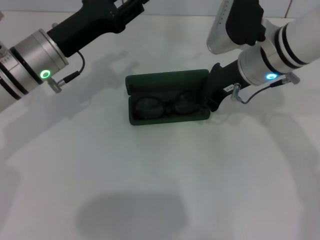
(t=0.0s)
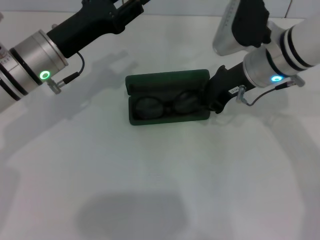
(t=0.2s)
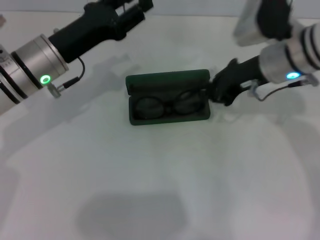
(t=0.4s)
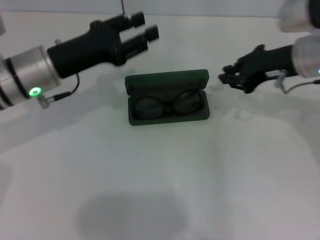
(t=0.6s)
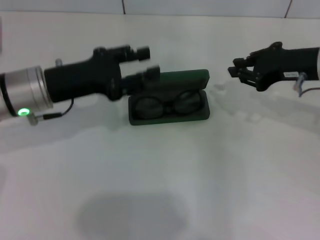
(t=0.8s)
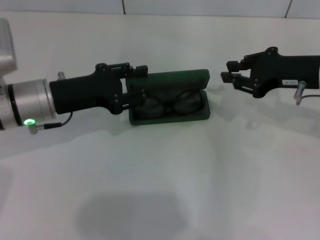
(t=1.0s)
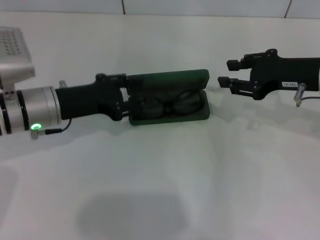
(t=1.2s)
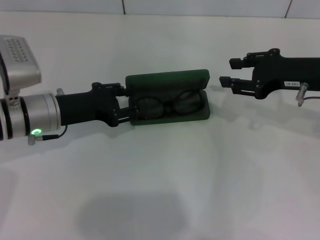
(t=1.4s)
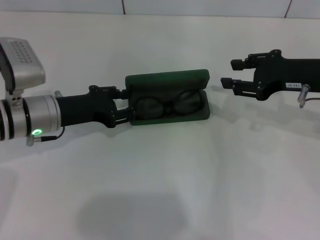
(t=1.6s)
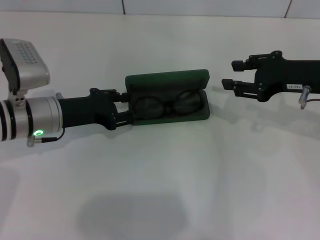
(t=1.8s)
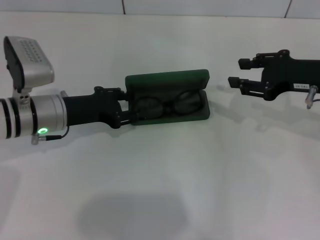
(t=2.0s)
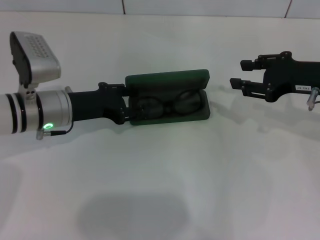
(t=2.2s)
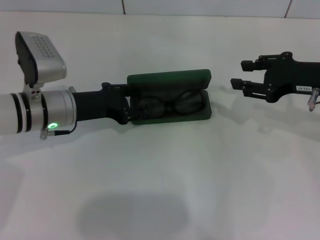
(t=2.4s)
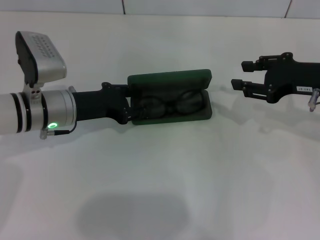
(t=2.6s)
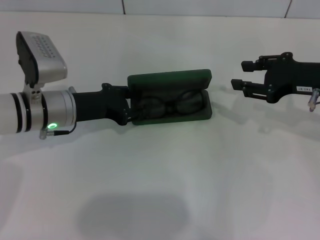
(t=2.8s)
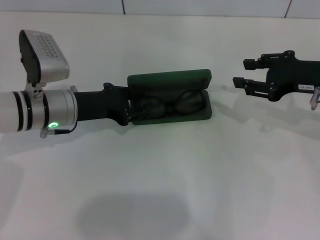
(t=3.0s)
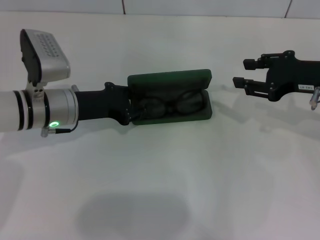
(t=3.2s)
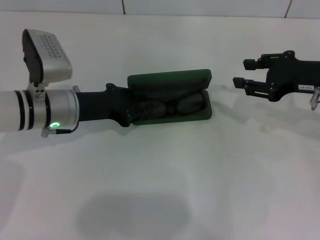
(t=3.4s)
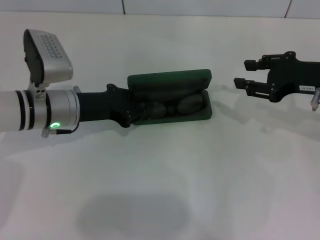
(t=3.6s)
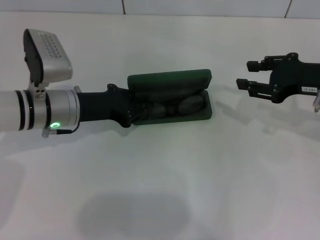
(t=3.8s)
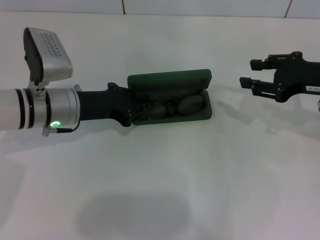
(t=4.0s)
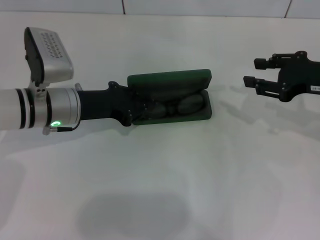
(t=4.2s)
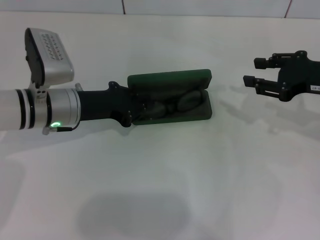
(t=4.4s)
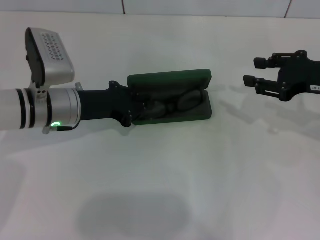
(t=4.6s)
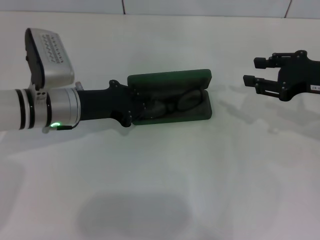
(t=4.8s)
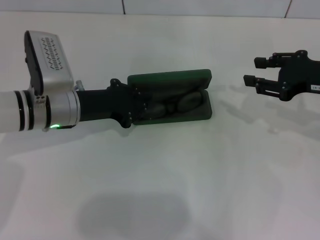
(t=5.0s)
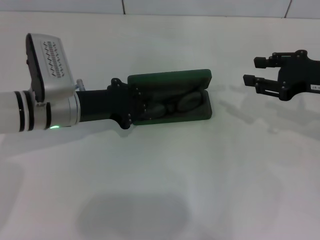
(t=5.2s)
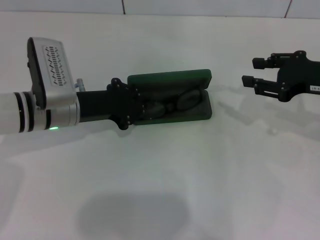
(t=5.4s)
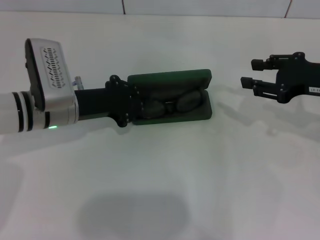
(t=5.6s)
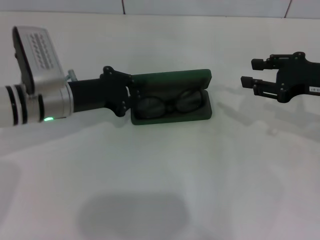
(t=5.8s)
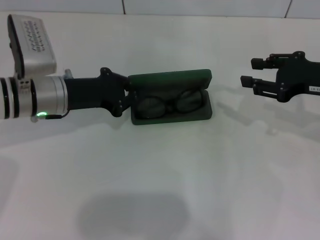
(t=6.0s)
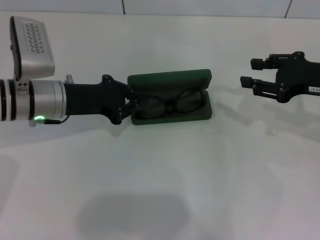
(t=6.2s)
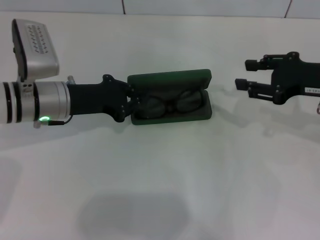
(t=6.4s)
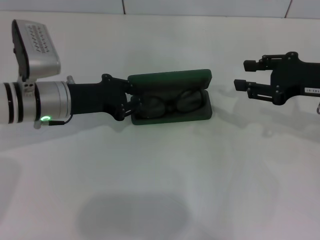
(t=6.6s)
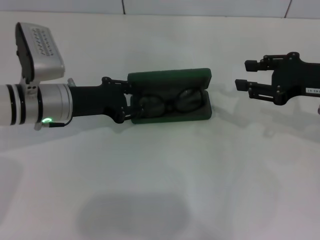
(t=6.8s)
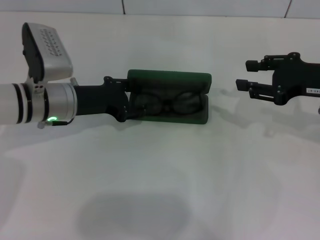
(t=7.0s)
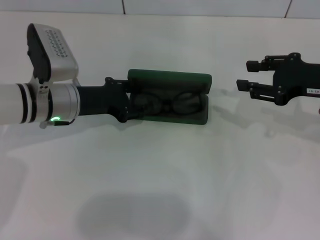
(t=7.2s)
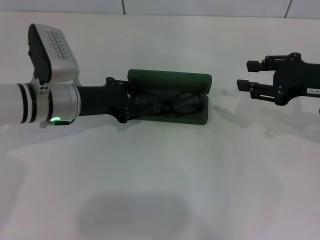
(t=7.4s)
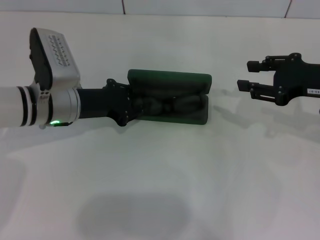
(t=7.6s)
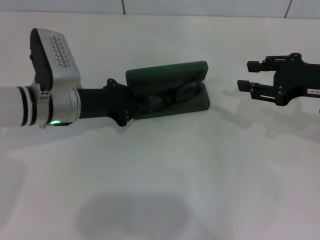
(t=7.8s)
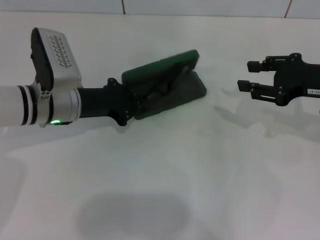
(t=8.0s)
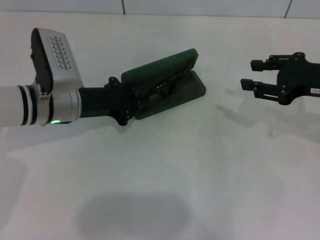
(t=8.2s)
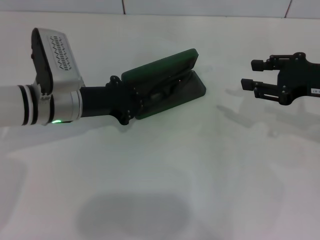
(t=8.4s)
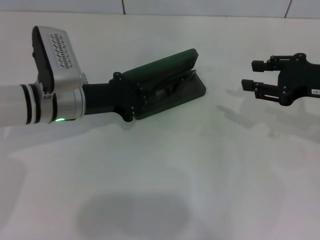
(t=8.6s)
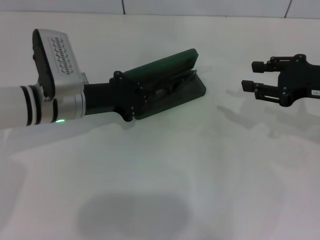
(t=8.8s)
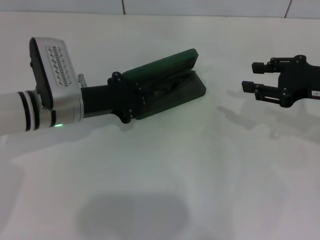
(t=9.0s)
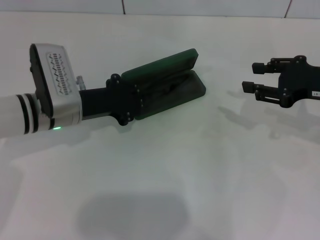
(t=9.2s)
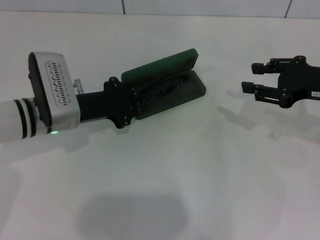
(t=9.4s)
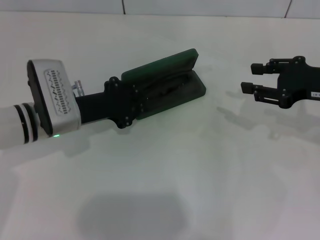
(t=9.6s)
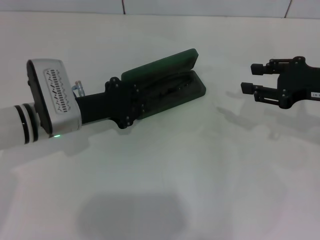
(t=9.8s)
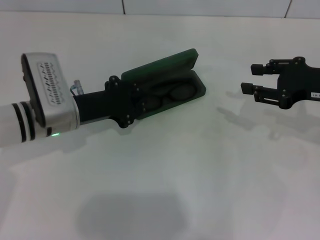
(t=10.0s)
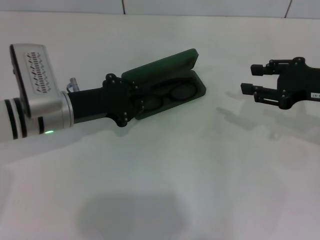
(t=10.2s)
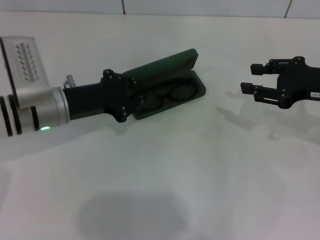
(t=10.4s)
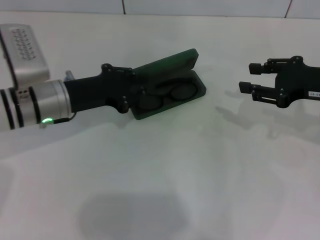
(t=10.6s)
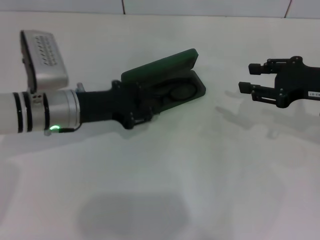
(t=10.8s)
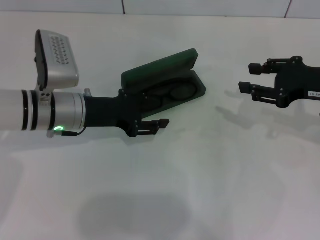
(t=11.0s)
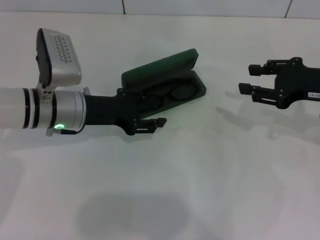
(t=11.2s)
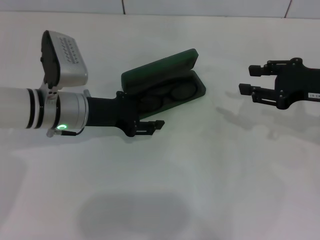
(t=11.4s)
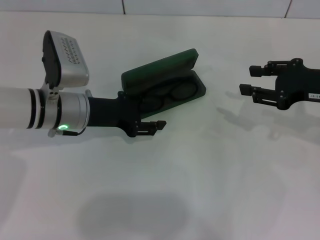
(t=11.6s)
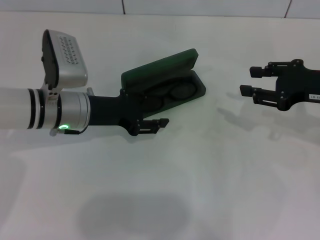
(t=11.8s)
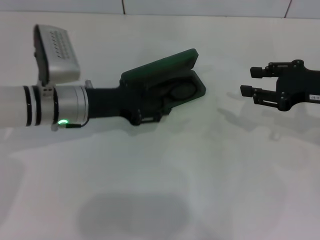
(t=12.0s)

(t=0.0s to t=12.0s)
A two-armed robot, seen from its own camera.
t=0.0s - t=1.6s: The right gripper is displaced to the right by about 10 cm, and opens its fingers. Meanwhile the left gripper shifts approximately 5 cm downward.
t=1.6s - t=4.4s: The grippers make only small movements.
t=6.0s - t=7.6s: The left gripper opens its fingers.
t=7.6s - t=9.0s: The left gripper closes up.
t=9.0s - t=10.4s: The grippers make only small movements.
t=10.4s - t=12.0s: The left gripper opens up.

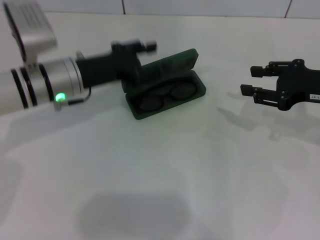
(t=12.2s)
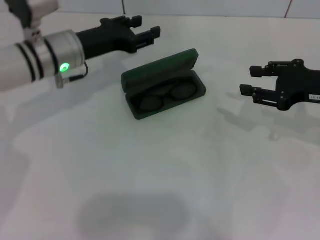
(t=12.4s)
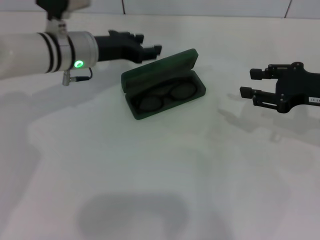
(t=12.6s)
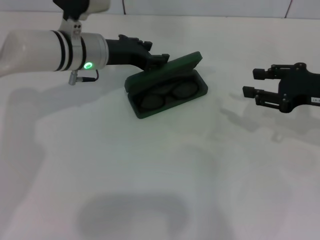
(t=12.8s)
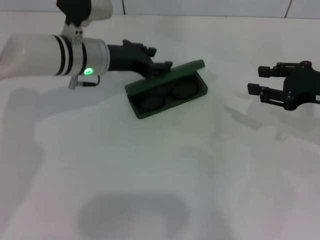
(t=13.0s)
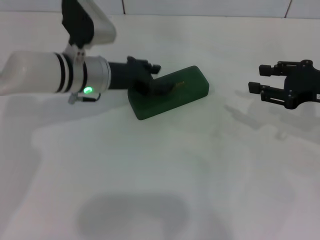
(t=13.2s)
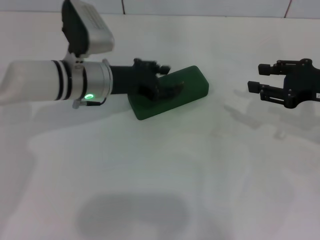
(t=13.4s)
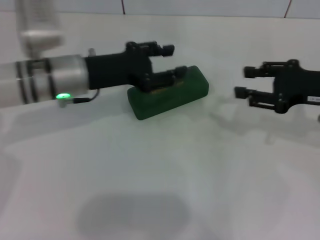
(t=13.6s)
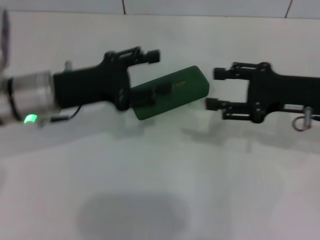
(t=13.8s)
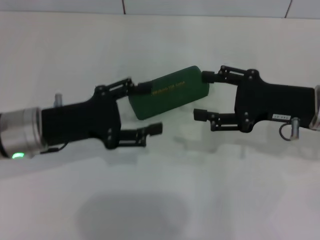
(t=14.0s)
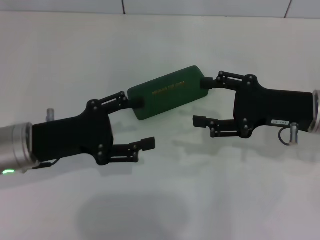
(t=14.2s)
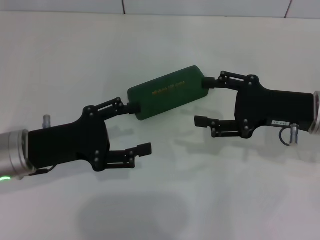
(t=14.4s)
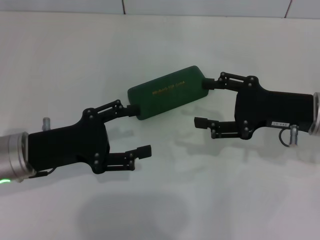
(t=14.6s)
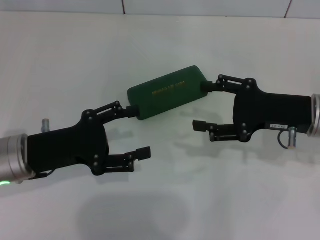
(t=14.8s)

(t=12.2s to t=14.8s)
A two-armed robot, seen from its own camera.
t=13.4s - t=14.8s: The right gripper is displaced to the left by roughly 5 cm. The left gripper heads backward and to the left, covering some 15 cm.

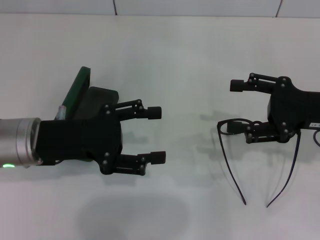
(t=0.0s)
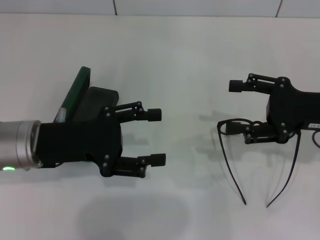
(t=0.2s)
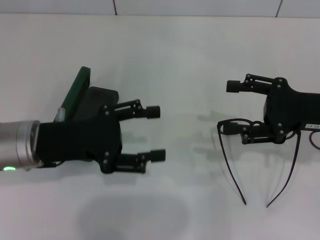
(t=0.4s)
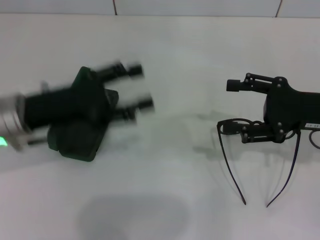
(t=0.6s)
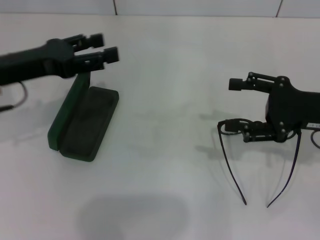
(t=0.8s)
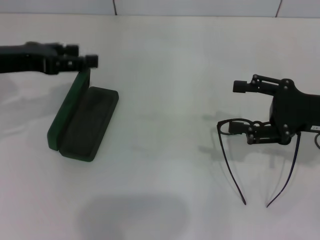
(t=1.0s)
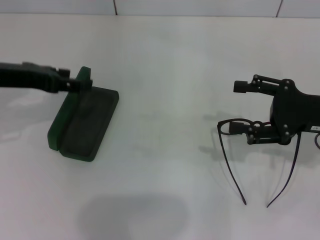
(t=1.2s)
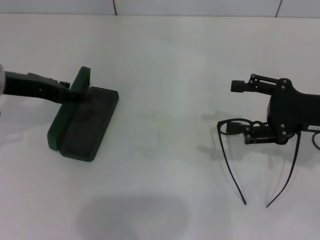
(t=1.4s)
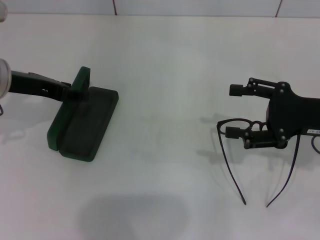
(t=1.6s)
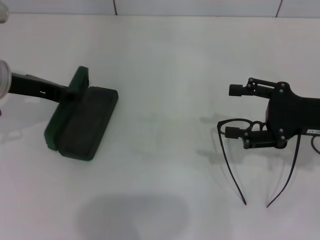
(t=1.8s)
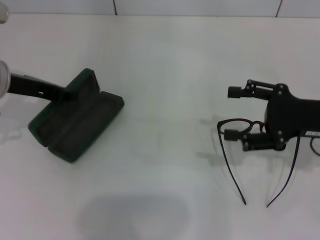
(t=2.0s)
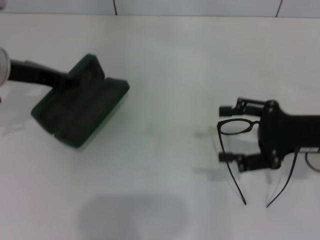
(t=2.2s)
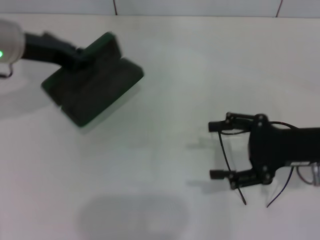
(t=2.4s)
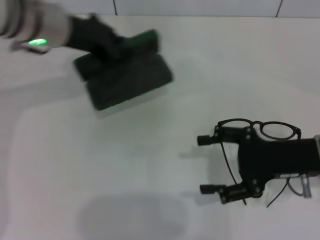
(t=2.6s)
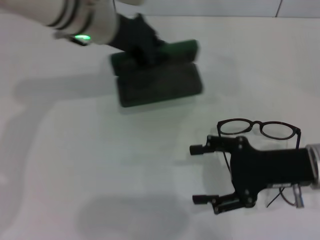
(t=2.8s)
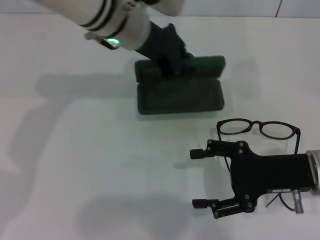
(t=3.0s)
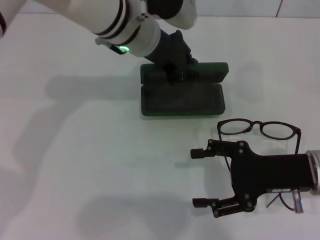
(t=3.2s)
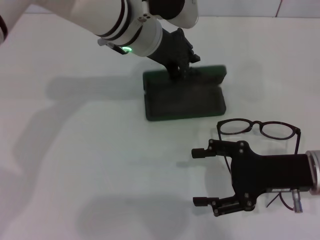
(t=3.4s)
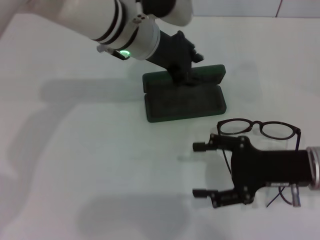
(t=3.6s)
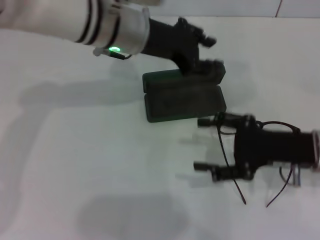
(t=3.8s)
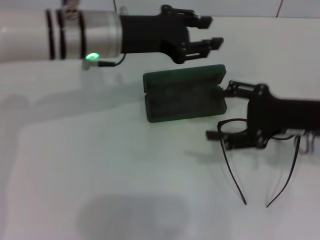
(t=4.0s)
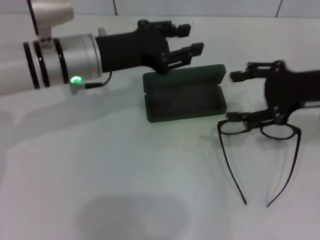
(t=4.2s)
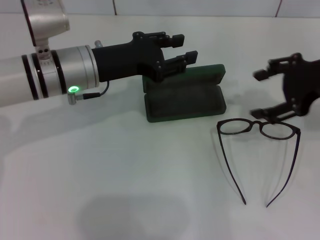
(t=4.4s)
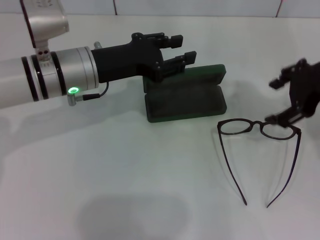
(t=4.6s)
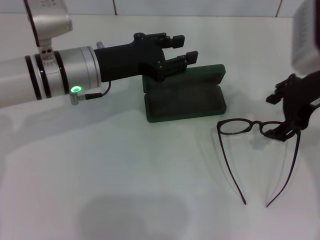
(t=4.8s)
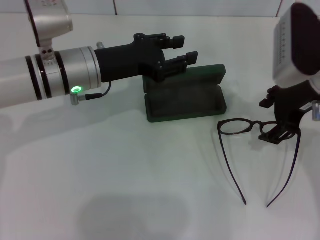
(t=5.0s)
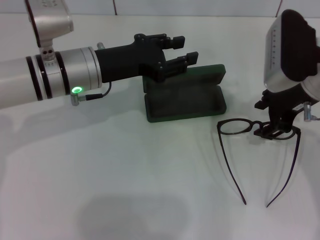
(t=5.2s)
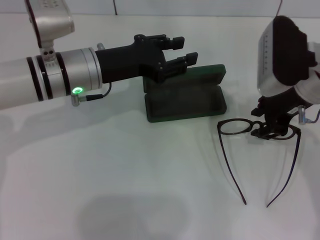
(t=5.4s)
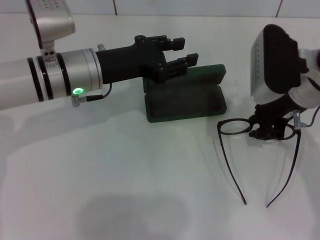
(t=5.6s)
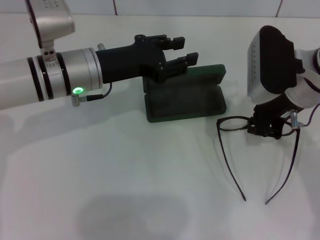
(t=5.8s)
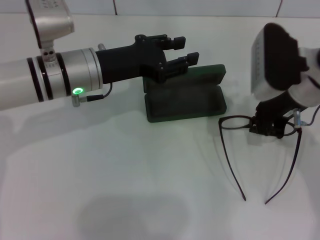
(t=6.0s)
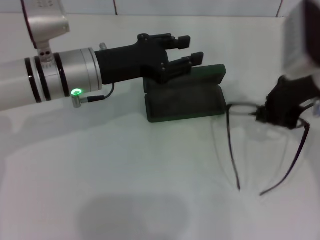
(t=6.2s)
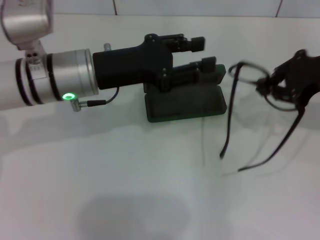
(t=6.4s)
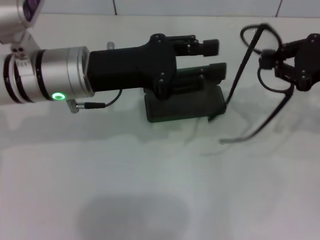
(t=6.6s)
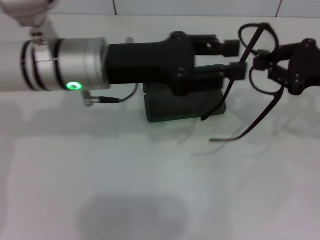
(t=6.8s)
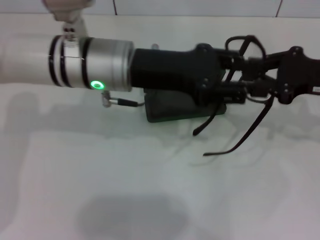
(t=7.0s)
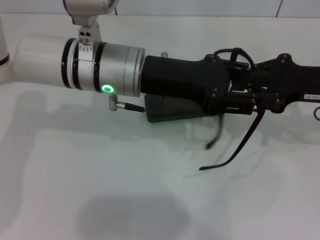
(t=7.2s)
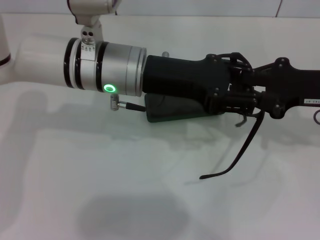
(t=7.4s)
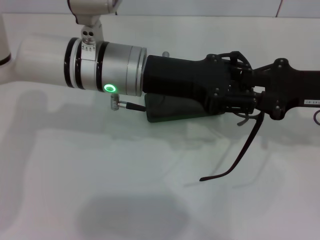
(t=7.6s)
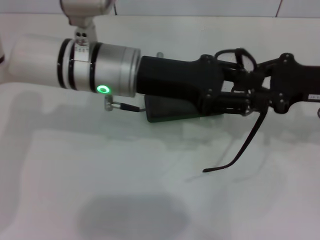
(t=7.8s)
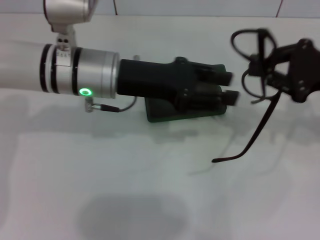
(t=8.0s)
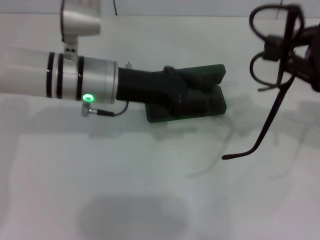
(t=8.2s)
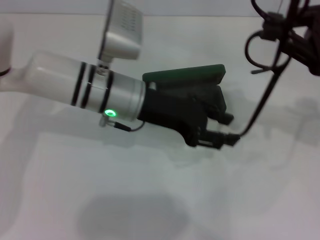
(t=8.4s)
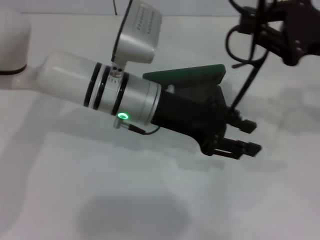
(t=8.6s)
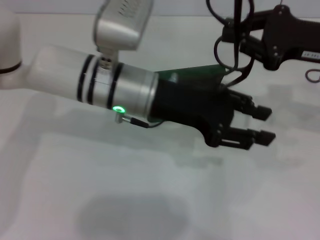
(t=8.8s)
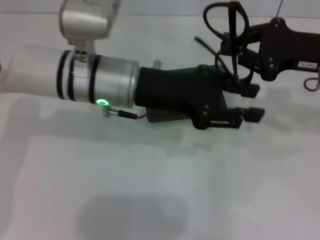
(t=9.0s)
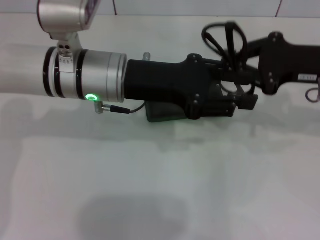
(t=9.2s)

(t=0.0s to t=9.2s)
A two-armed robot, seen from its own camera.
Step, t=0.0s - t=2.0s: Grab the glasses case with your left hand.
Step, t=2.2s - t=3.6s: Place the glasses case in the center of the table with your left hand.
Step, t=3.8s - t=6.0s: Grab the eyeglass frame with your right hand.
t=0.0s - t=1.6s: The left gripper heads forward, covering approximately 5 cm.
t=1.6s - t=3.0s: The right gripper ends up about 5 cm from where it was. Meanwhile the left gripper moves to the right, some 20 cm, and closes its fingers.
t=3.0s - t=4.6s: The left gripper moves to the left, downward and backward, approximately 10 cm, and opens its fingers. The right gripper goes about 15 cm upward and forward.
t=4.6s - t=6.2s: The right gripper closes.
t=6.2s - t=7.6s: Both grippers move to the right, about 5 cm.
